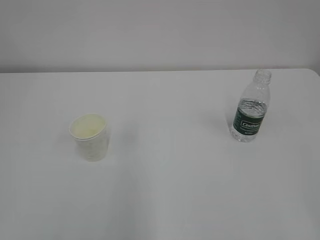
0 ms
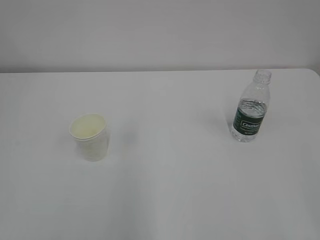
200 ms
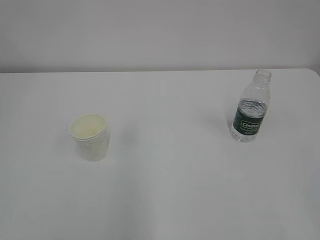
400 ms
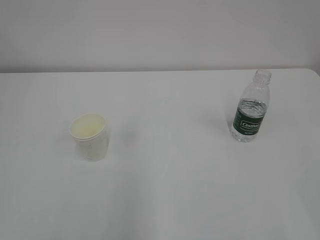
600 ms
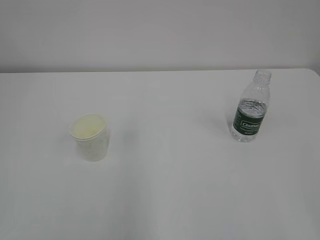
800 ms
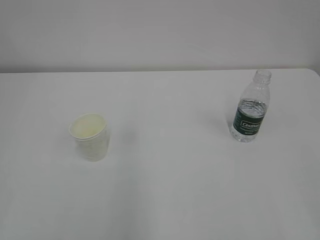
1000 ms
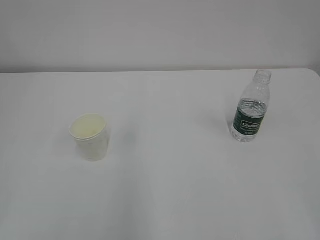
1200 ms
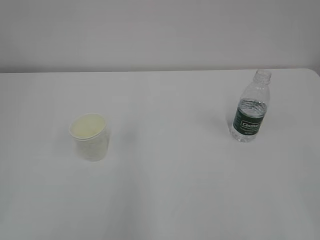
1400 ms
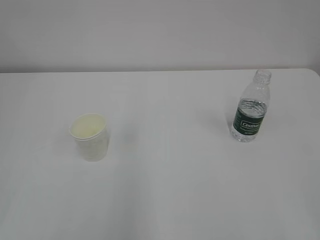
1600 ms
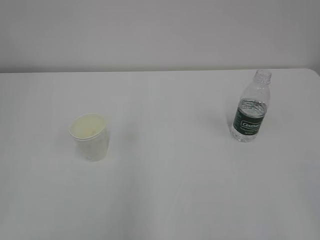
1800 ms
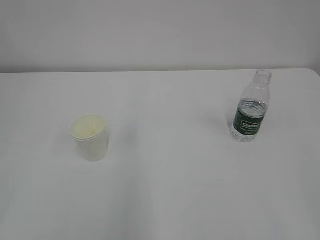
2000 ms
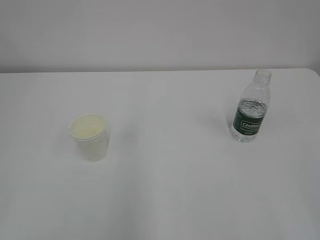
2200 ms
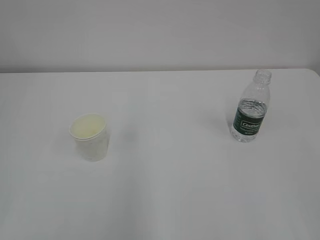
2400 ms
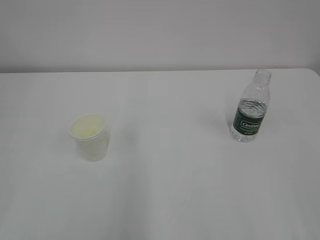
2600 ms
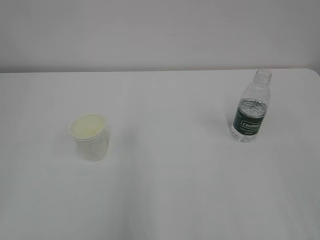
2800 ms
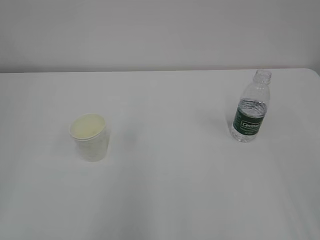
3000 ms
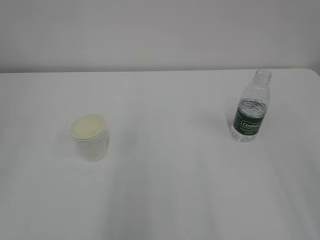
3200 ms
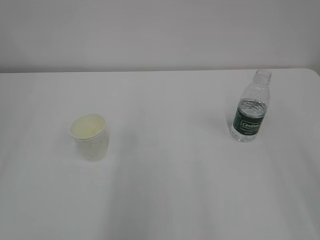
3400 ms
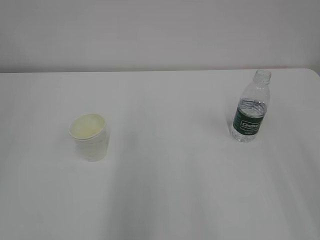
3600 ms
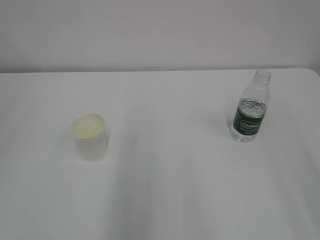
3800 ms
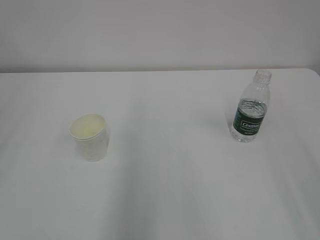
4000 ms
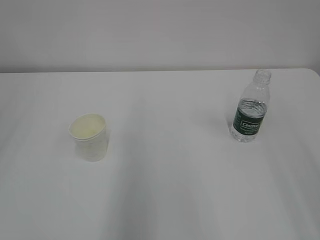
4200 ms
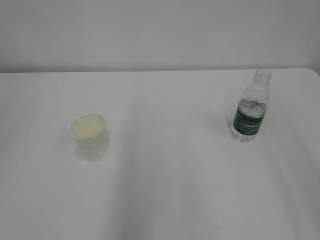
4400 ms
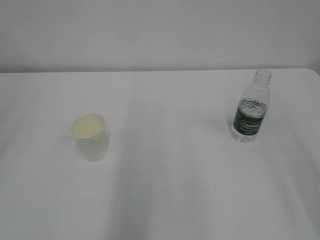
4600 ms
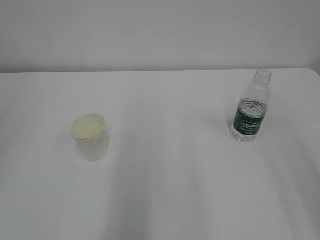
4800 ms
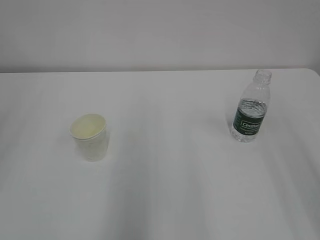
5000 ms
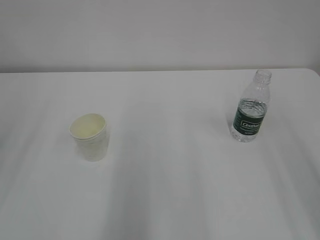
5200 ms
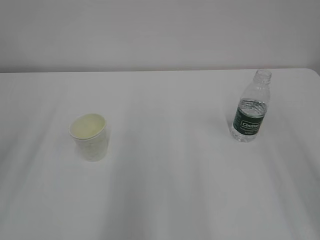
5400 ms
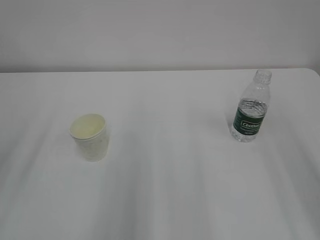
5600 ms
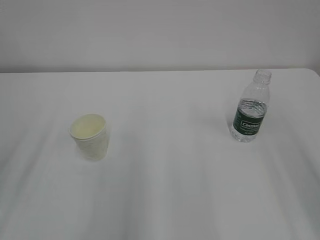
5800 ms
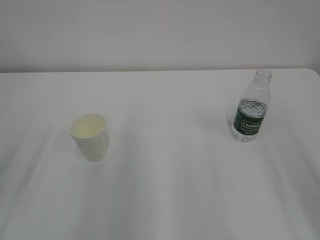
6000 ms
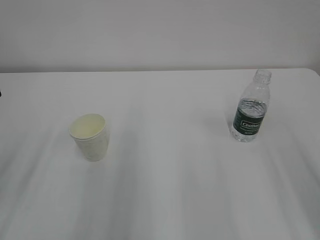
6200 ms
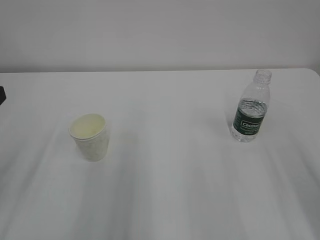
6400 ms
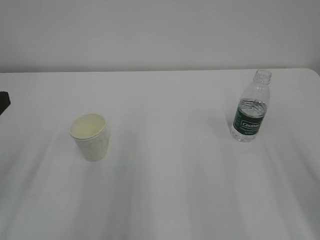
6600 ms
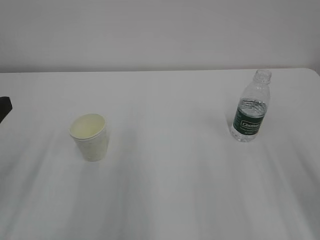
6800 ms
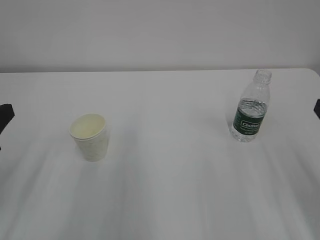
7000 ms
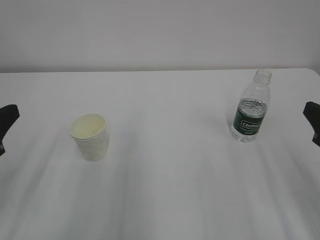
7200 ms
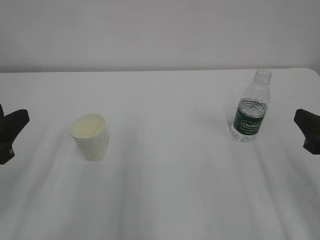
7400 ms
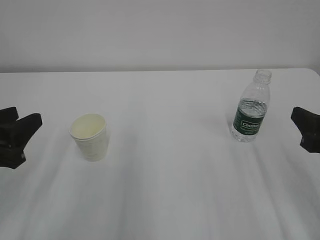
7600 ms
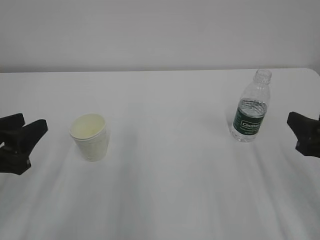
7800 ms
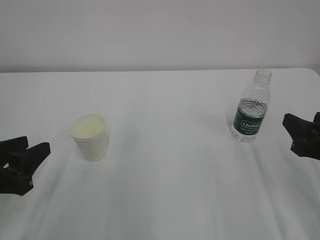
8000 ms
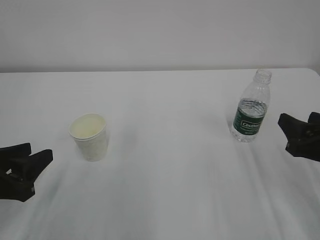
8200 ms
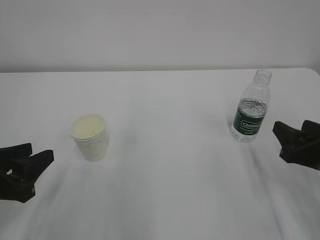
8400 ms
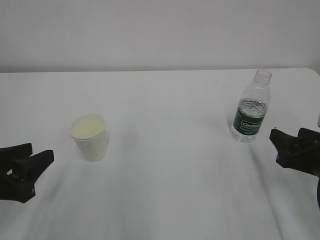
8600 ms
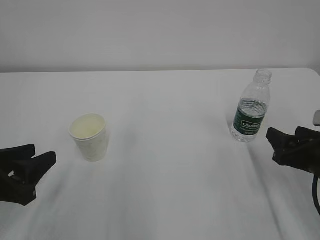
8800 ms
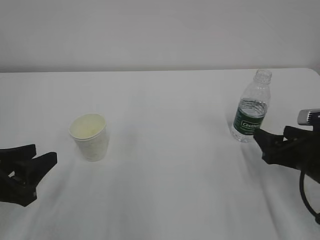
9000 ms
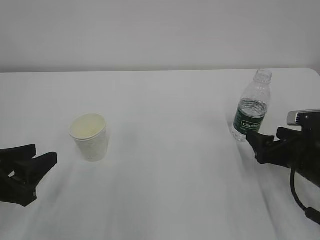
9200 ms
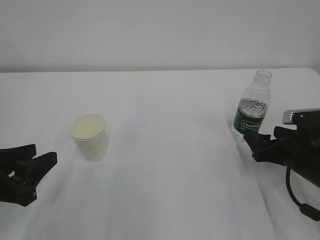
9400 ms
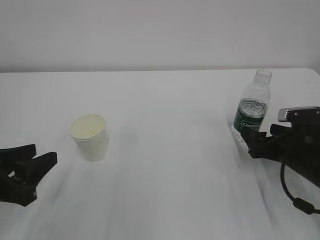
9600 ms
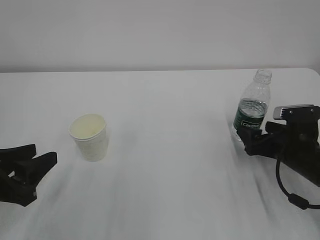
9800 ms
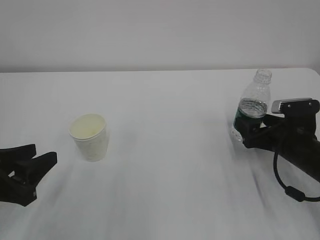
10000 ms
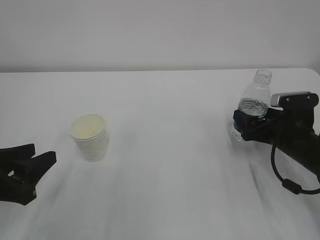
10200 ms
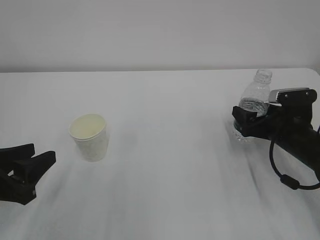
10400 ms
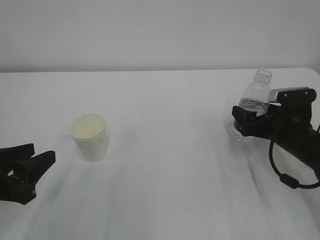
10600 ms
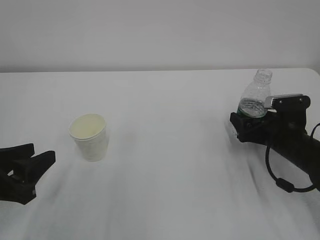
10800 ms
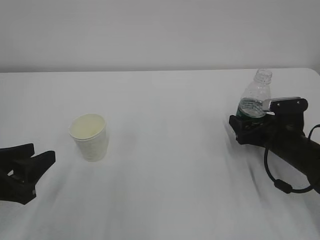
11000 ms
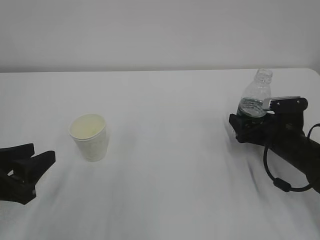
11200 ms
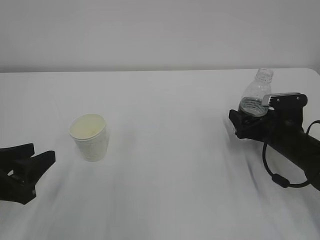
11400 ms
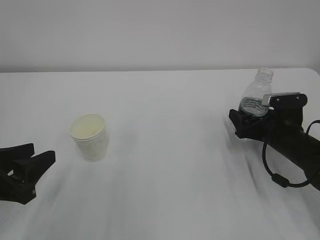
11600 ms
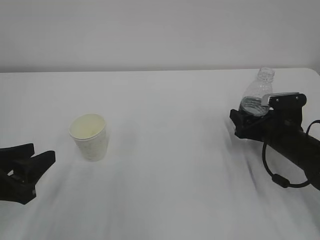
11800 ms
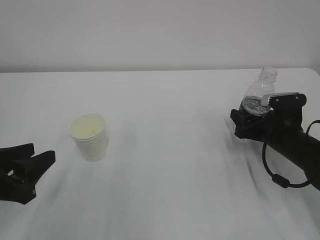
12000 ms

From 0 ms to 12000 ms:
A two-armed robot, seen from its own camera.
From 6000 ms to 7600 ms: The left gripper is displaced downward by about 5 cm. Meanwhile the right gripper heads downward and forward, covering about 10 cm.
From 7600 ms to 9000 ms: The right gripper heads downward and forward, covering about 10 cm, and opens up.
From 9000 ms to 10400 ms: The right gripper heads forward, covering about 10 cm.
From 10400 ms to 12000 ms: The right gripper closes up.

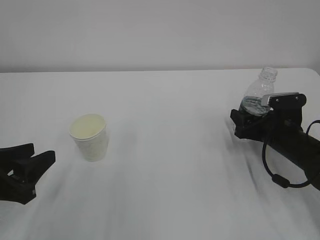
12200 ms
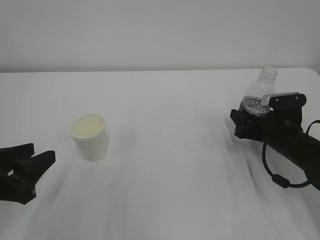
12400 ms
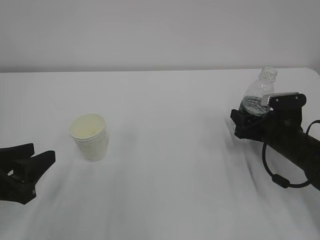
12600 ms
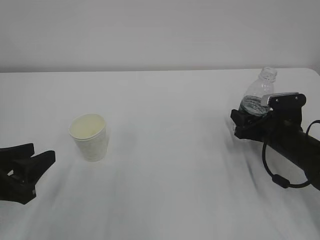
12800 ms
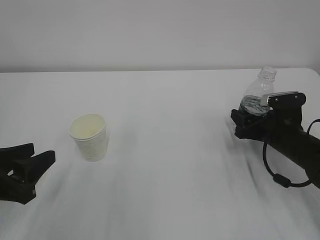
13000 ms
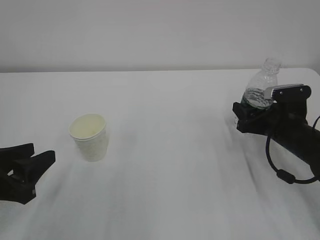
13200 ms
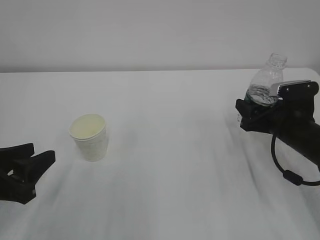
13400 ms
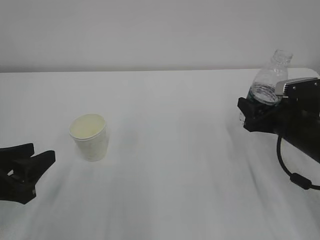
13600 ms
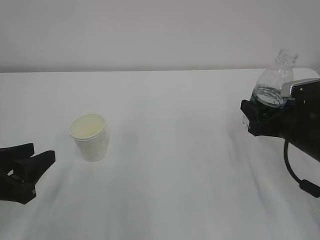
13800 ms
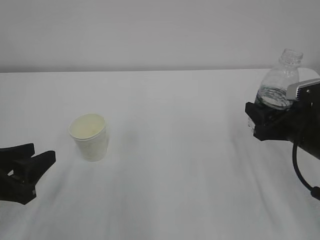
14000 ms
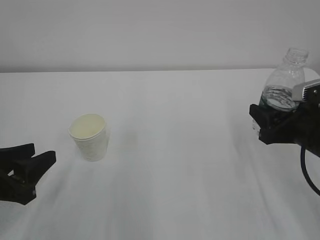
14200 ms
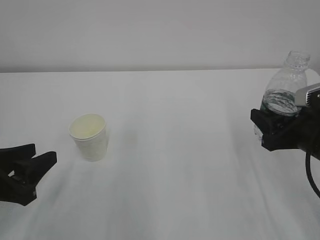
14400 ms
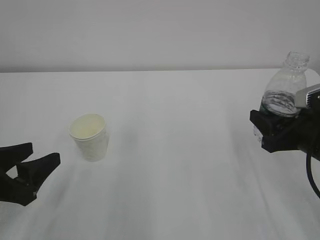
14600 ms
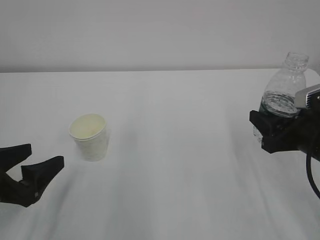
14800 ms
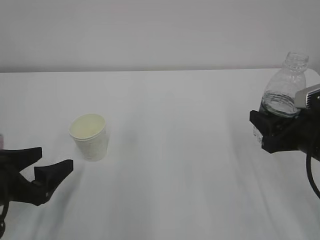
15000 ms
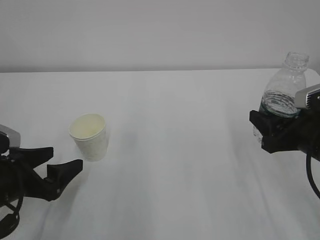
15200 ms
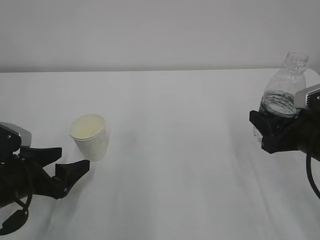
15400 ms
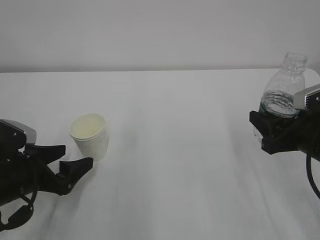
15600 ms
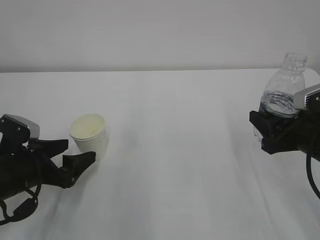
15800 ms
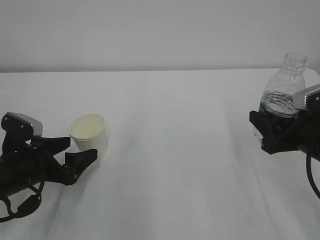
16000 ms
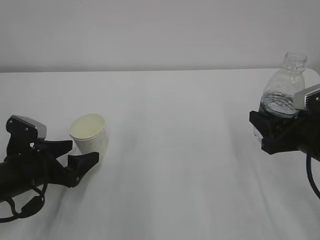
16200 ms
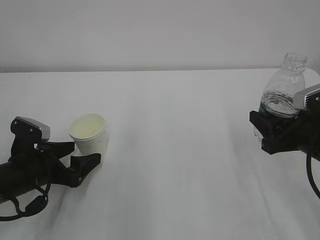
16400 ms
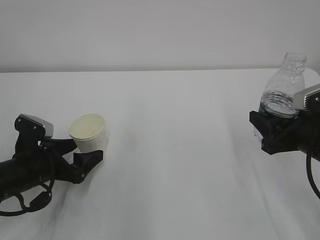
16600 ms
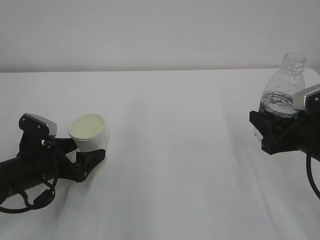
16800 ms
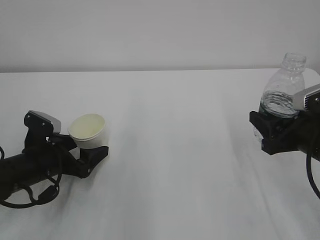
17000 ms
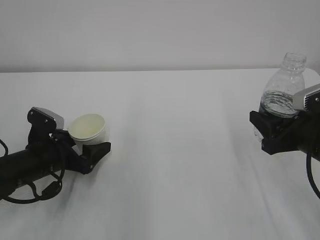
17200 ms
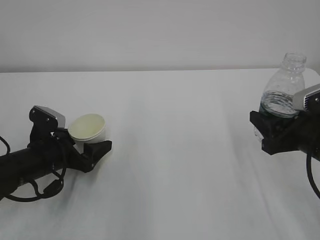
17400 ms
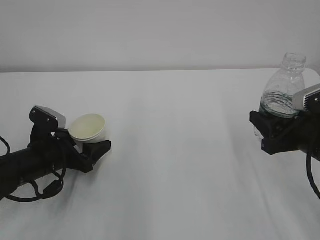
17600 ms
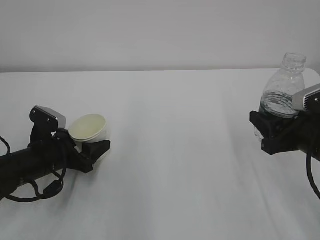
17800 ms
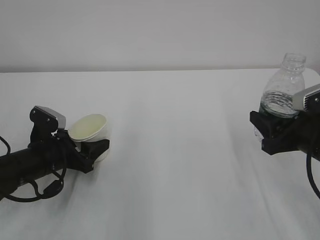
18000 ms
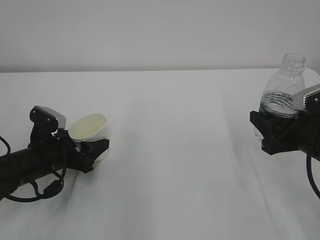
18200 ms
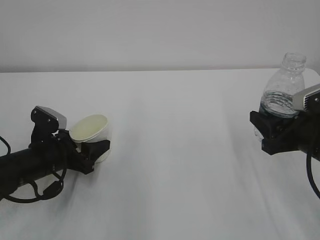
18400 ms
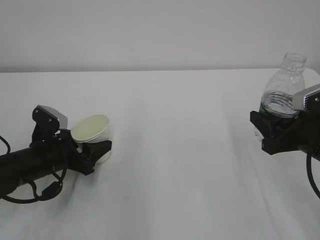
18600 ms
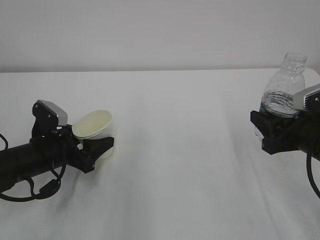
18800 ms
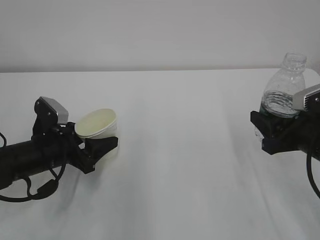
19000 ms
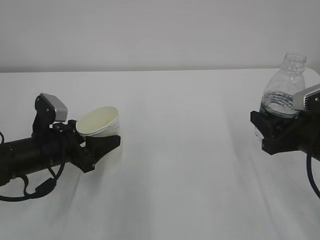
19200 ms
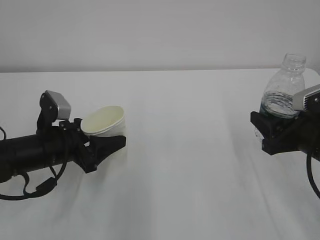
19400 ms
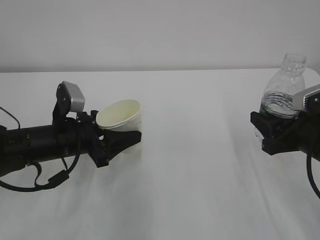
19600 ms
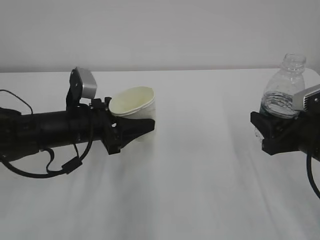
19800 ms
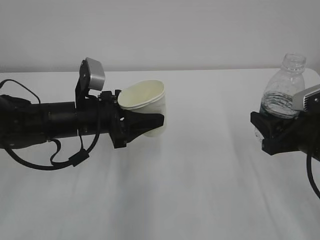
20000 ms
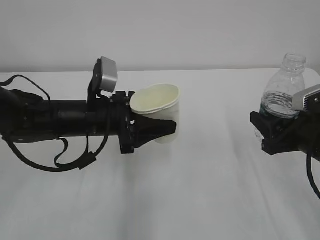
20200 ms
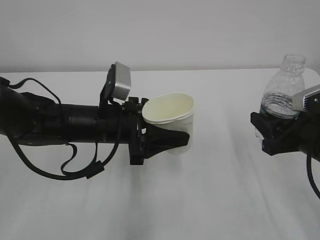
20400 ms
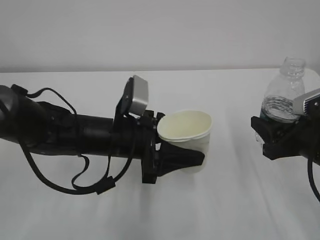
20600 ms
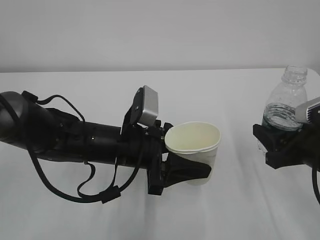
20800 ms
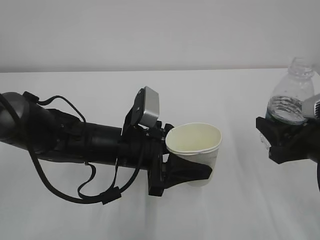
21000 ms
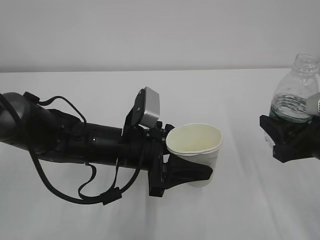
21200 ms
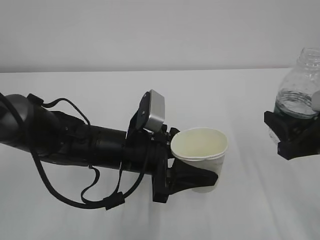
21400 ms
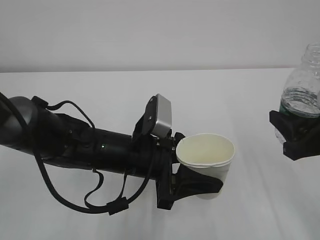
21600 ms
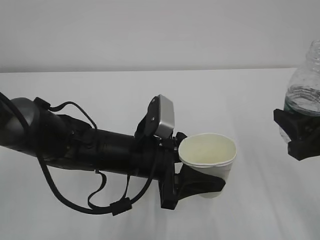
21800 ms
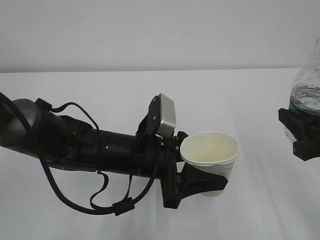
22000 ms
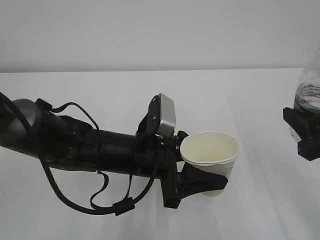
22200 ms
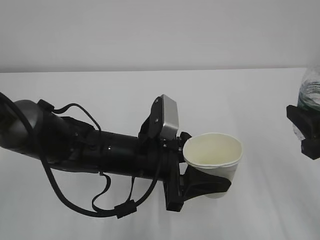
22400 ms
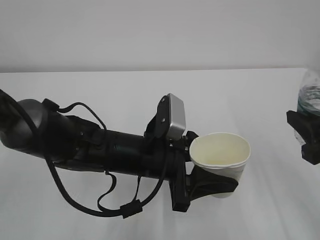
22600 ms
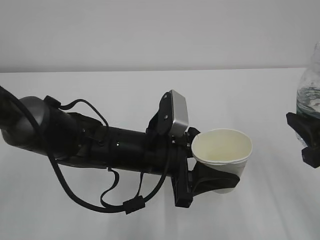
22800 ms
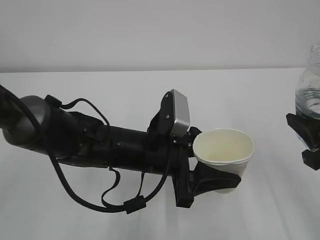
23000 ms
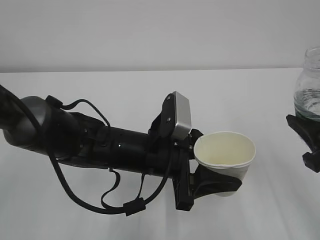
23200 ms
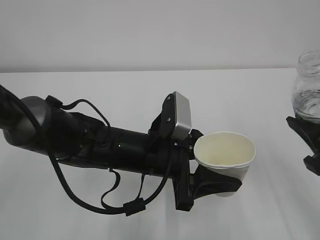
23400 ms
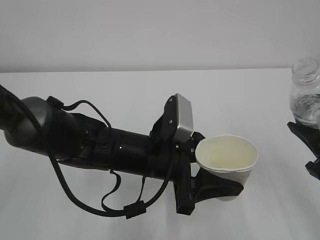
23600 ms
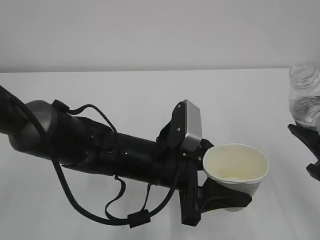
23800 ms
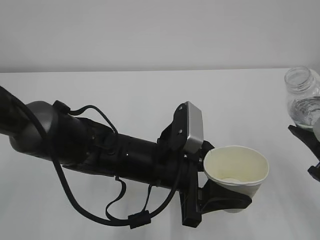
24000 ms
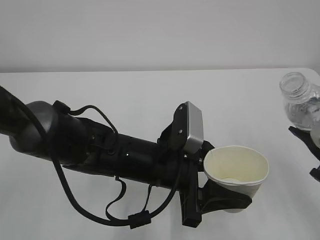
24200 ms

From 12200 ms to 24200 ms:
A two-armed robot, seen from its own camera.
From 12200 ms to 13800 ms: The right gripper is displaced upward by roughly 5 cm.
From 13800 ms to 15200 ms: The left gripper opens up. The right gripper shifts by approximately 5 cm.
From 15200 ms to 16600 ms: The left gripper travels forward by approximately 5 cm.
From 16600 ms to 18200 ms: The left gripper closes its fingers.
From 18200 ms to 19800 ms: The left gripper goes approximately 10 cm upward and to the right.
From 19800 ms to 21200 ms: The left gripper heads to the right, covering approximately 10 cm.
From 21200 ms to 22600 ms: The right gripper moves roughly 5 cm.
